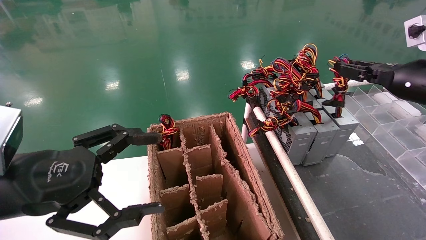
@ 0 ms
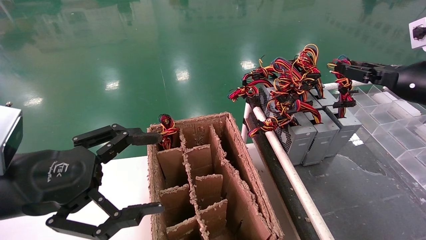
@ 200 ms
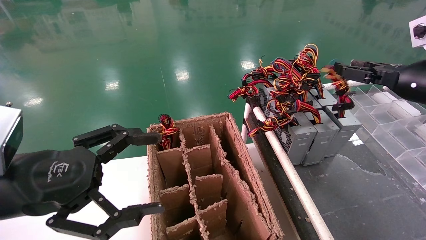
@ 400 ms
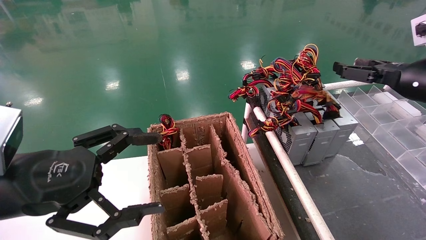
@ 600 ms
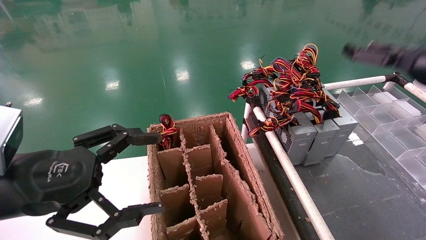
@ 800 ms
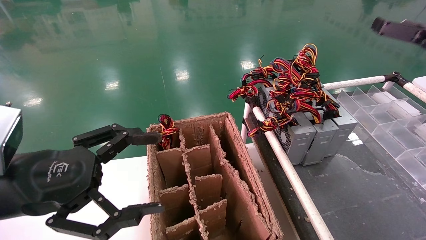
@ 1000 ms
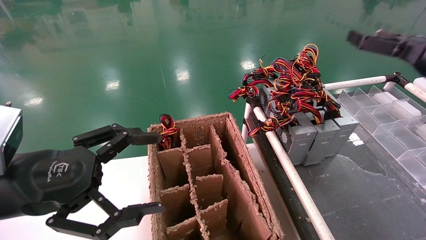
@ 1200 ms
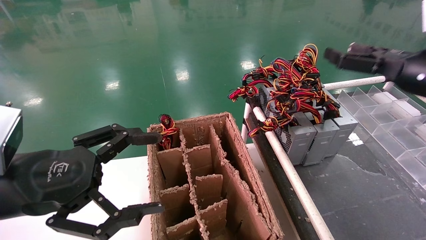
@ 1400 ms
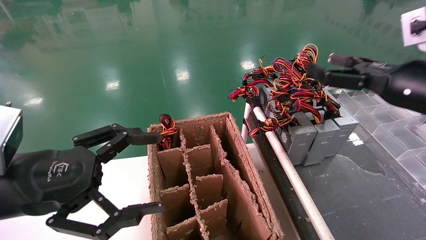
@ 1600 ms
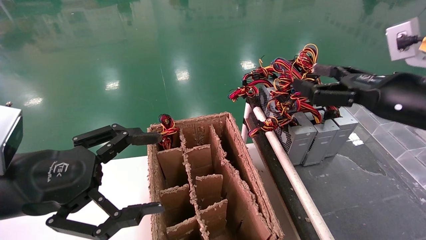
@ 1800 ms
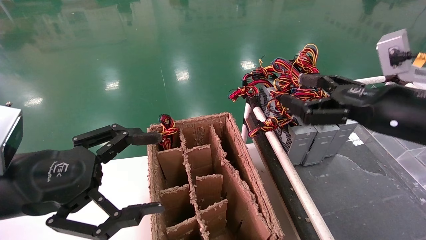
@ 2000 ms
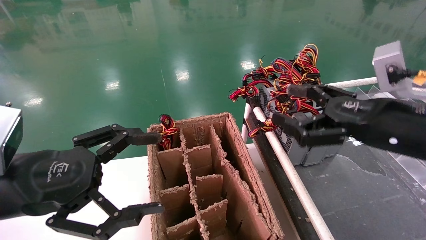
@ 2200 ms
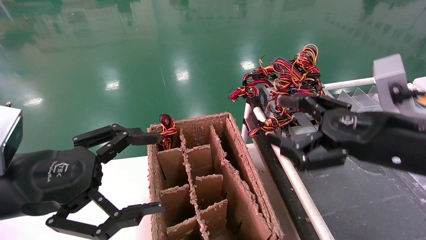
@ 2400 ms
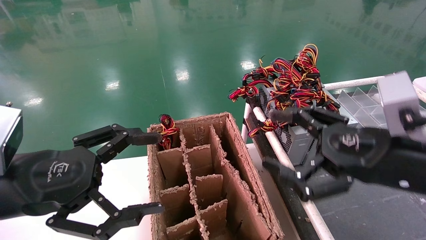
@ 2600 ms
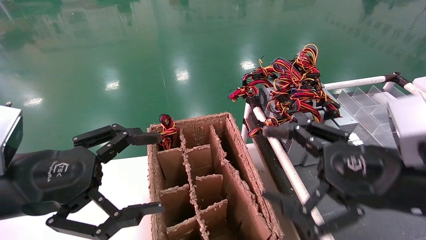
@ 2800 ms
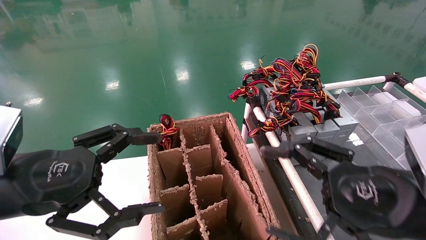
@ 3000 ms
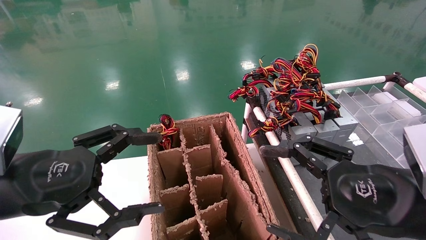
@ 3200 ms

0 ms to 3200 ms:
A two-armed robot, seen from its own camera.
0 ms to 1600 ms: The right gripper is displaced to the left by roughly 5 cm, and opens up.
1600 ms to 3200 ms: The right gripper moves backward, downward and to the left, approximately 15 cm.
